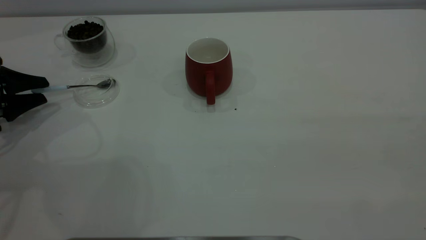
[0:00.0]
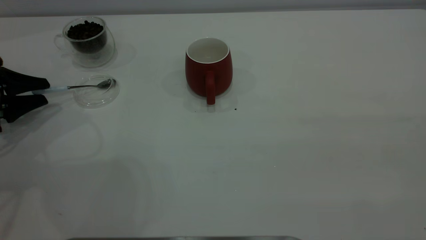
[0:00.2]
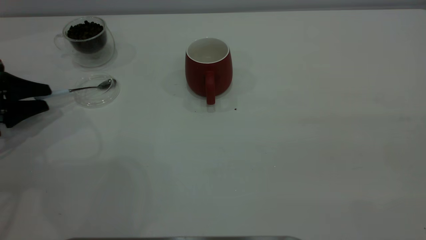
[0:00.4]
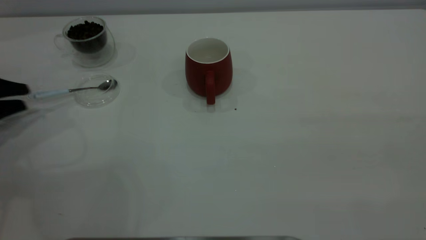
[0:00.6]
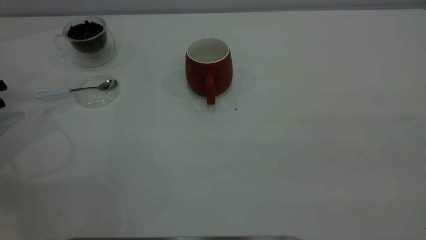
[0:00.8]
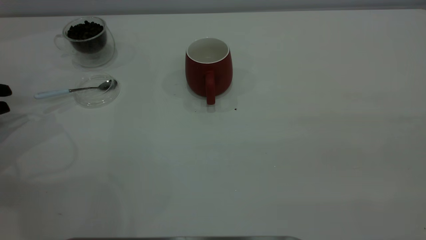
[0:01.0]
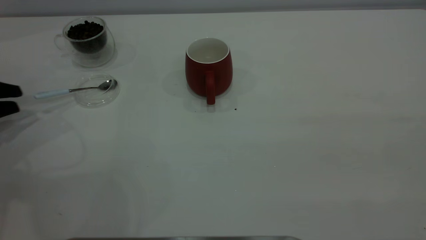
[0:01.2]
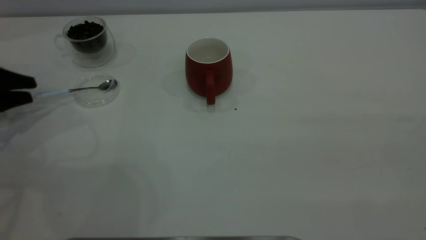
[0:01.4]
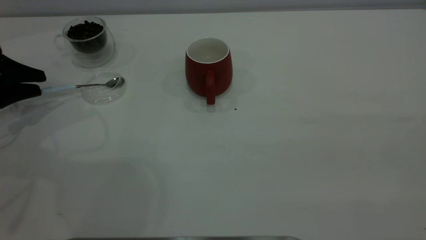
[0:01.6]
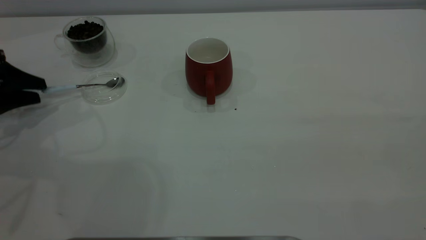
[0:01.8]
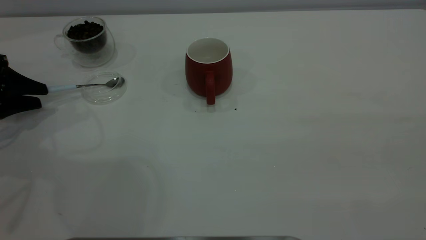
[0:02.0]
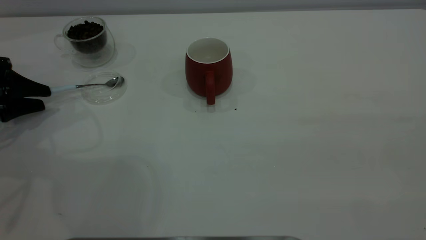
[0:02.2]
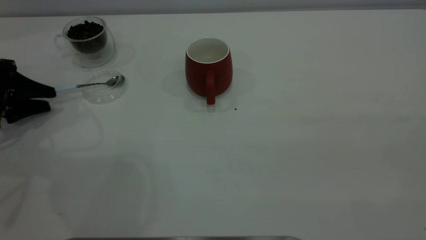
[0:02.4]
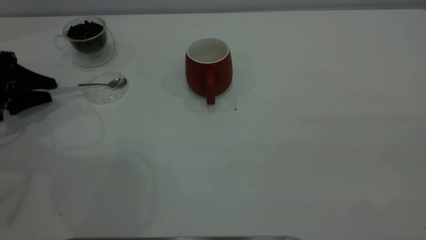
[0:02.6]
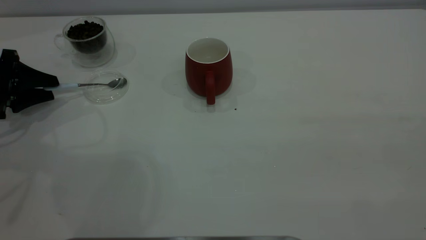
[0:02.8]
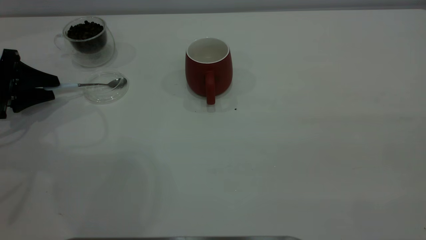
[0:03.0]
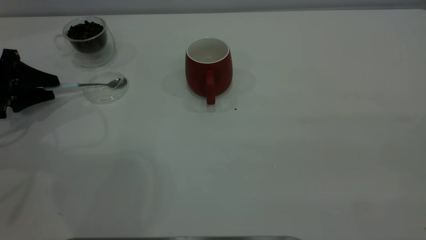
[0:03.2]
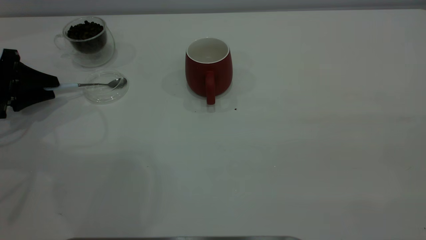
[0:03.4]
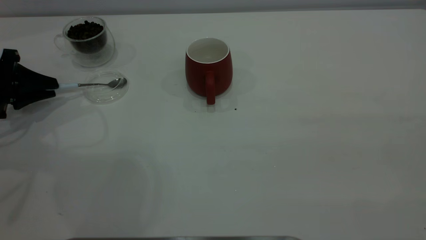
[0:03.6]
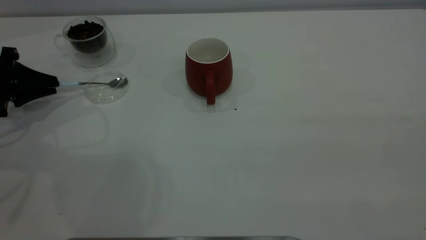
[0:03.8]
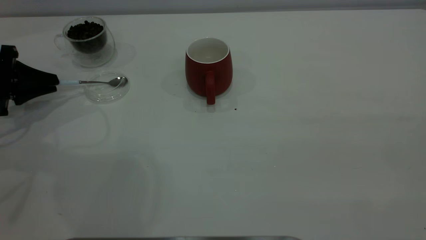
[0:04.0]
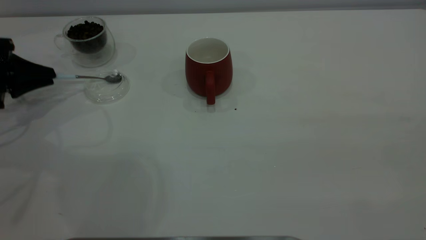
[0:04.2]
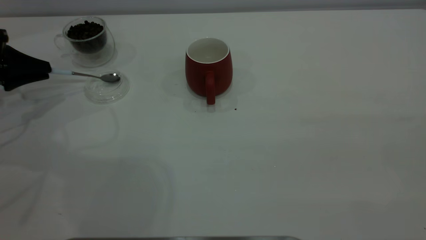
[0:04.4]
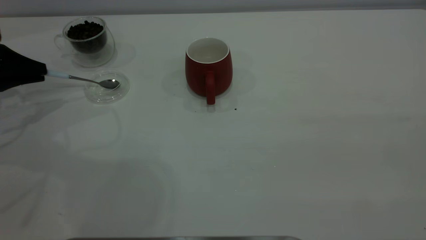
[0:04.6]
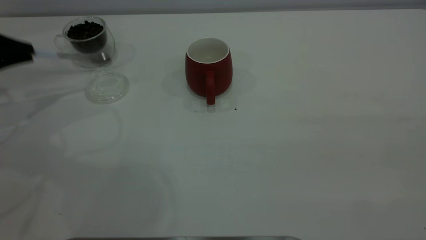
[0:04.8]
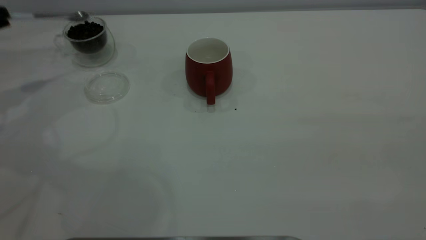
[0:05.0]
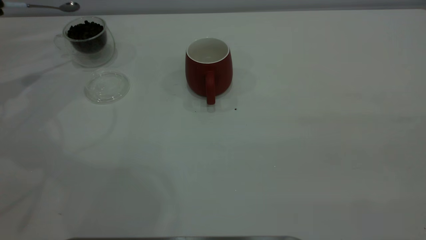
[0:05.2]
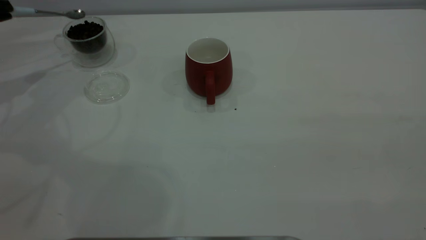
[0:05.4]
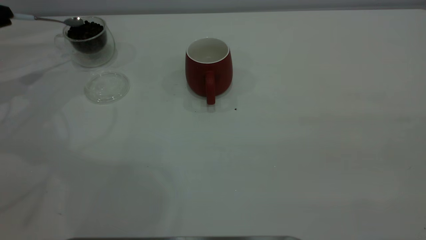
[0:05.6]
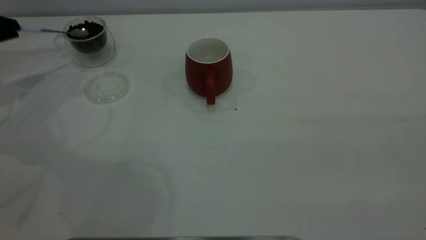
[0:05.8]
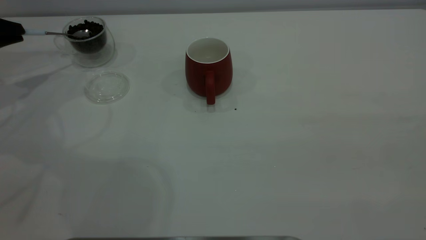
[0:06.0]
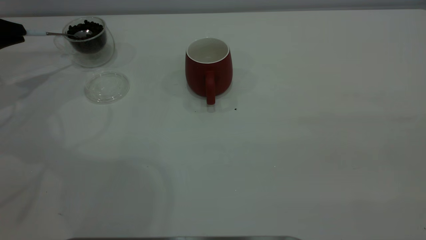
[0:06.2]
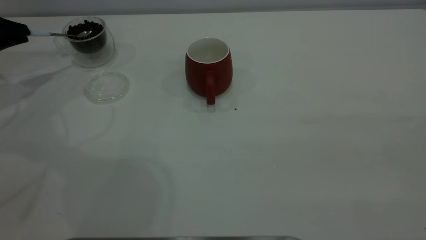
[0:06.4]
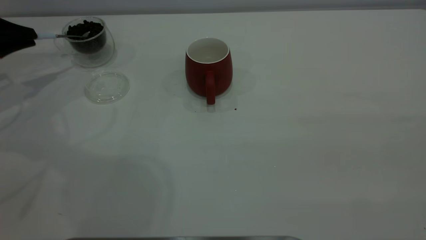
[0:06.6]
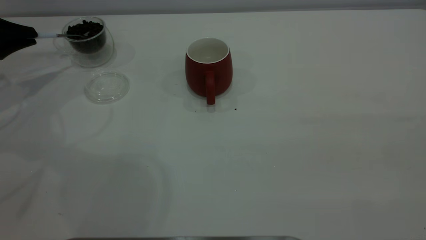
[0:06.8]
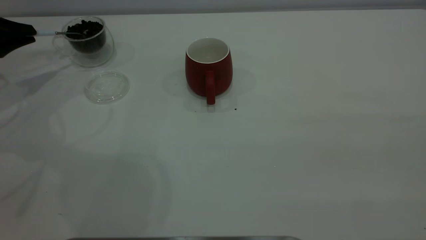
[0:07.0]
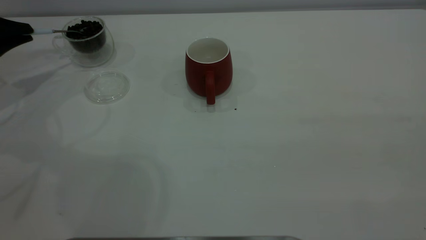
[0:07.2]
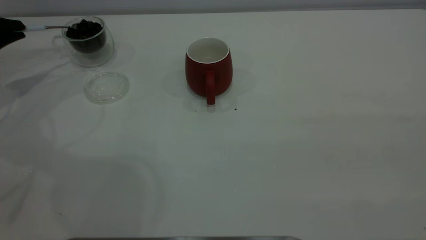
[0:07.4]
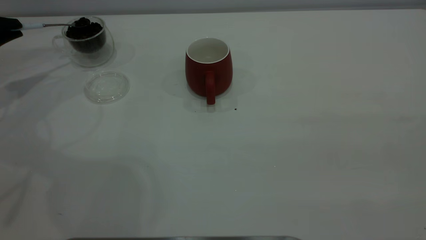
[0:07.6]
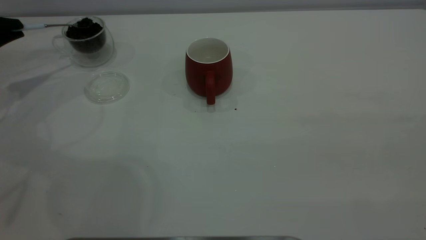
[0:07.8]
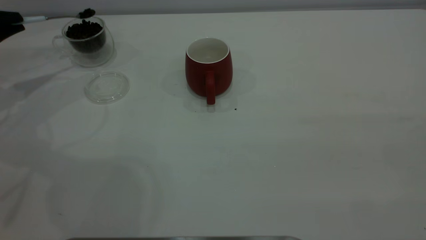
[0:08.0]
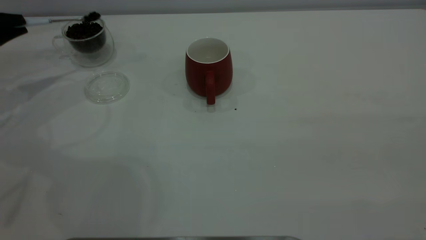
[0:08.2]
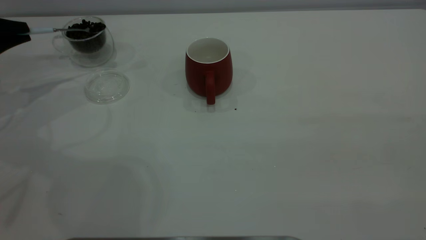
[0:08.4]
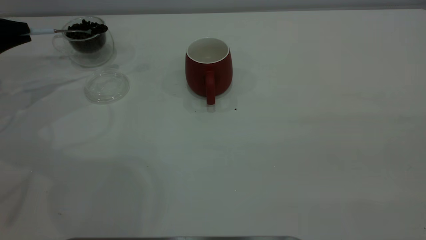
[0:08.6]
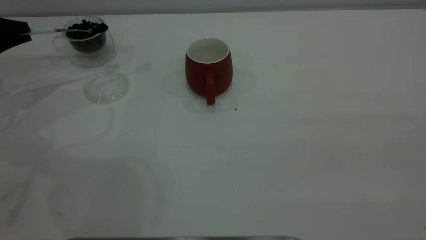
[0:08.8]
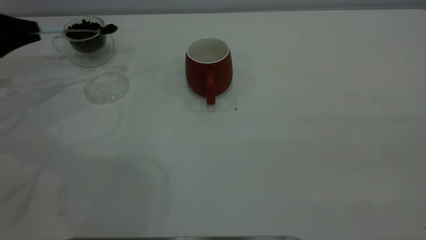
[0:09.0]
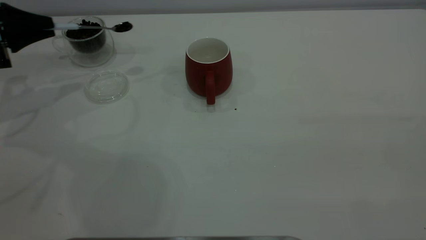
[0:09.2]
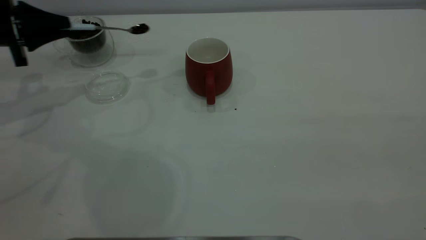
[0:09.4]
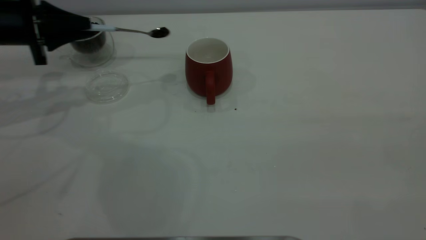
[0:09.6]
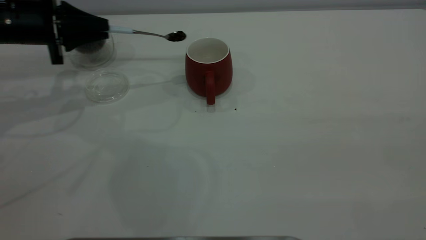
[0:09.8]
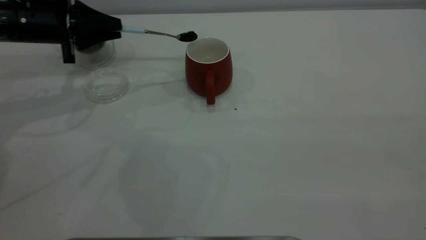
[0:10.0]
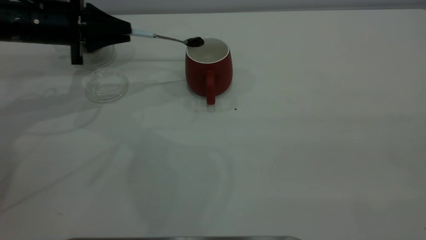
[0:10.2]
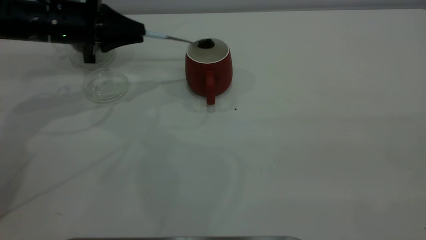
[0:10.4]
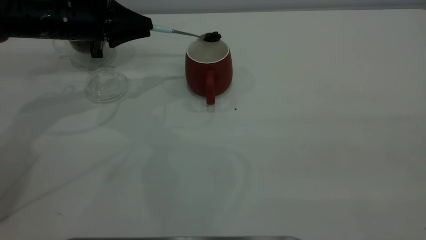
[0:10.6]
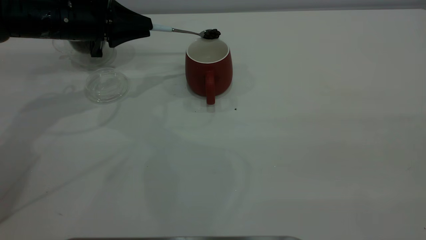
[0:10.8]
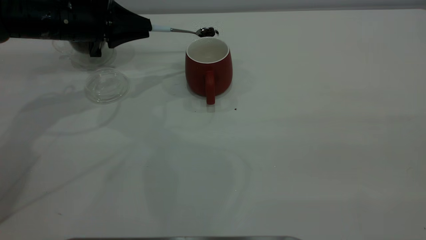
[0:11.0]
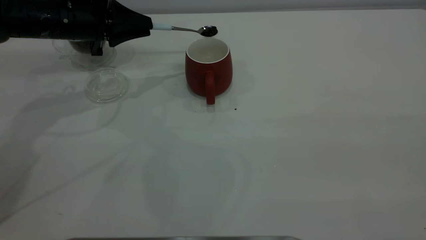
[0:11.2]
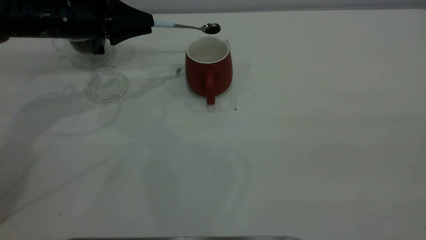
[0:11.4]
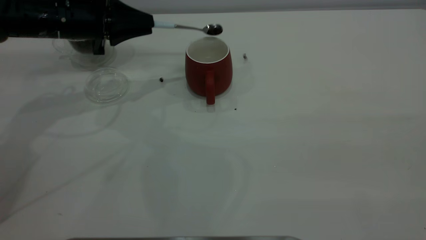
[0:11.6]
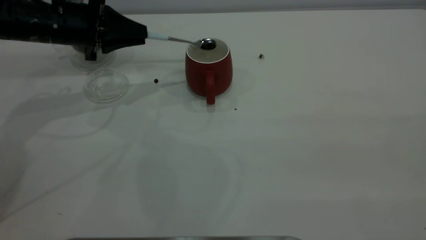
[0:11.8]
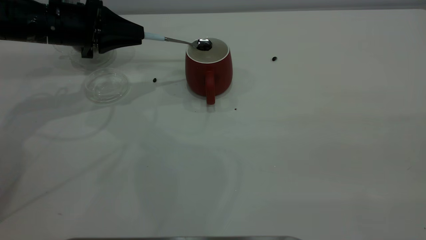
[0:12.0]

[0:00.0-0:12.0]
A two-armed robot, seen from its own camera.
Task of the whole recording: the right gripper place the red cup in the center of the table, the left gripper take the blue spoon from the cup lid and scoop out the coffee beans from the coffee cup and put them into the red cup, the left gripper put the spoon back into the cup lid.
Step, 0:00.0 to 0:04.6: Pick up the spoon.
0:00.0 to 0:03.0: The grippers make only small movements.
0:03.0 to 0:04.4: The left gripper closes up.
0:07.6 to 0:09.0: The grippers move only a little.
0:09.0 to 0:10.4: The left gripper is displaced to the right by roughly 15 cm.
0:10.4 to 0:12.0: There are only small adjustments of the grippers.

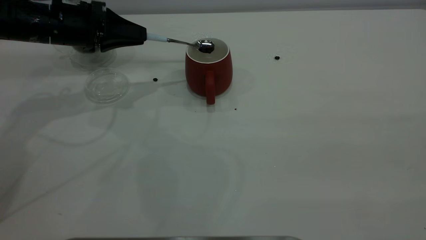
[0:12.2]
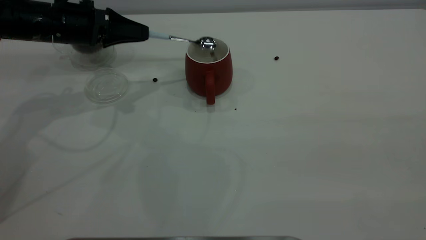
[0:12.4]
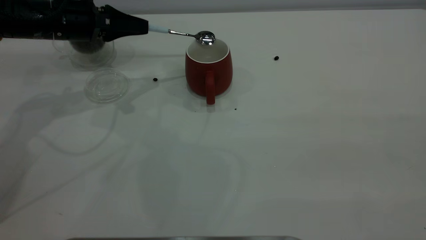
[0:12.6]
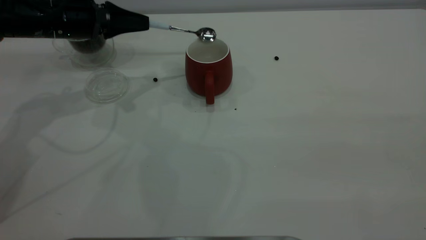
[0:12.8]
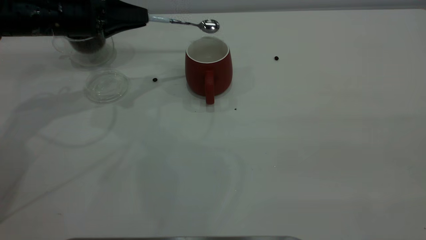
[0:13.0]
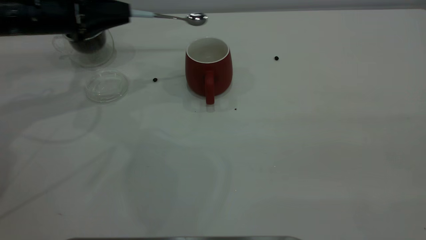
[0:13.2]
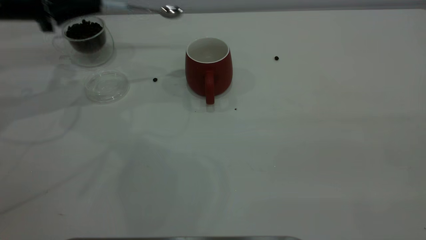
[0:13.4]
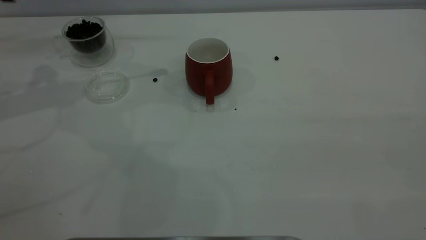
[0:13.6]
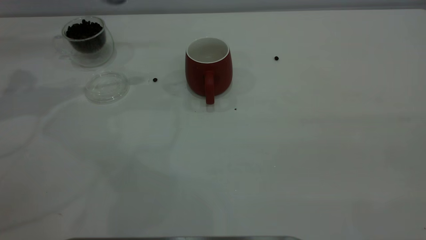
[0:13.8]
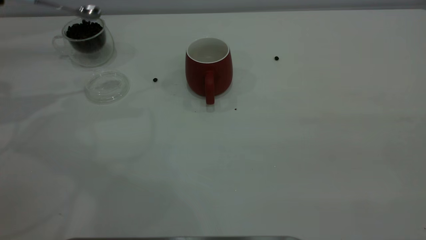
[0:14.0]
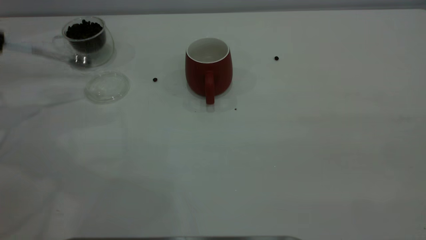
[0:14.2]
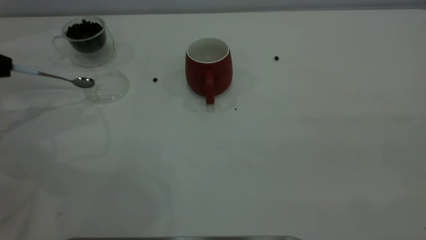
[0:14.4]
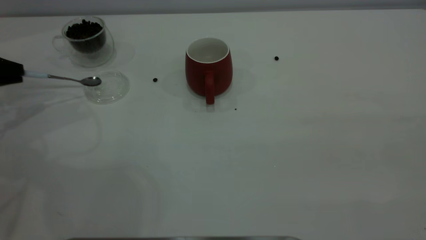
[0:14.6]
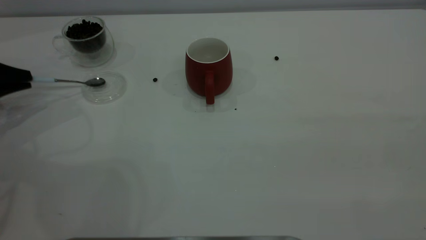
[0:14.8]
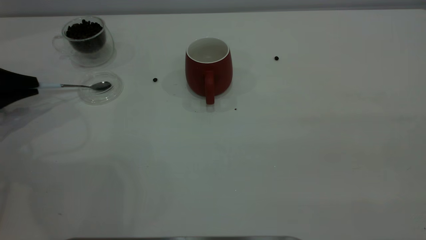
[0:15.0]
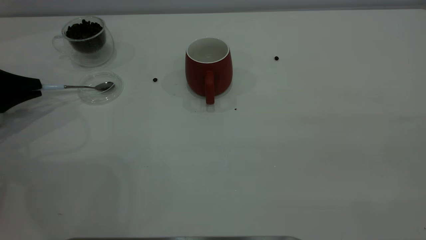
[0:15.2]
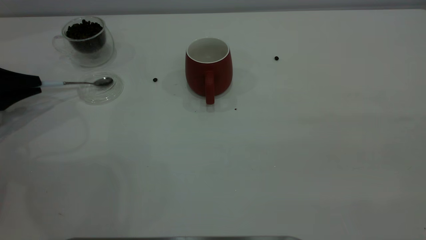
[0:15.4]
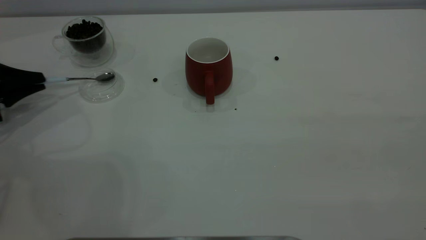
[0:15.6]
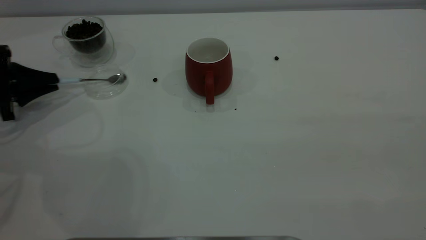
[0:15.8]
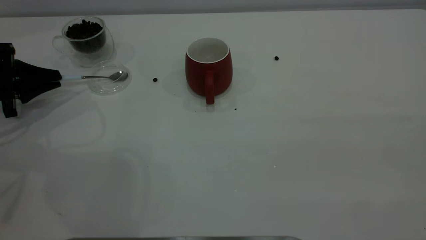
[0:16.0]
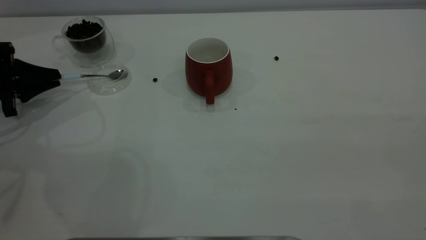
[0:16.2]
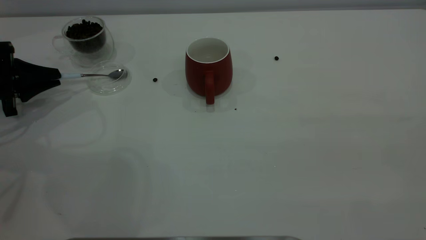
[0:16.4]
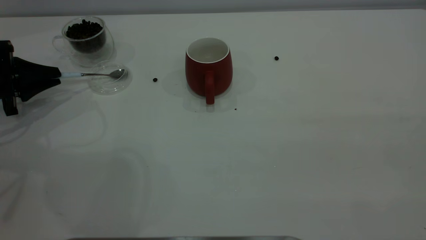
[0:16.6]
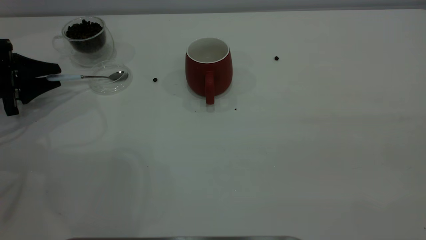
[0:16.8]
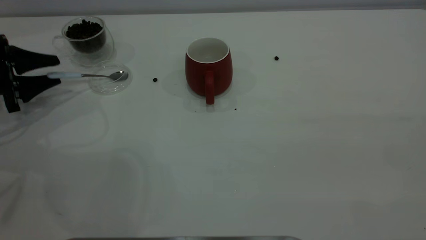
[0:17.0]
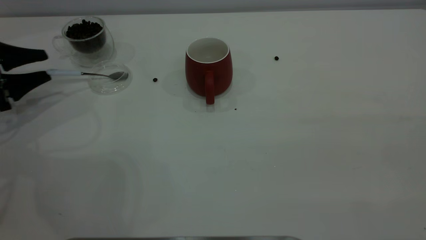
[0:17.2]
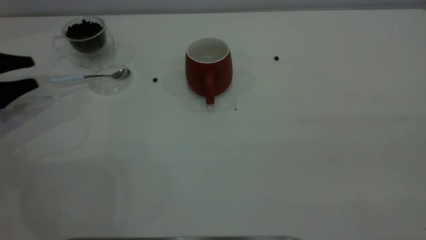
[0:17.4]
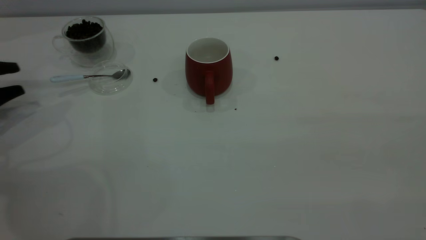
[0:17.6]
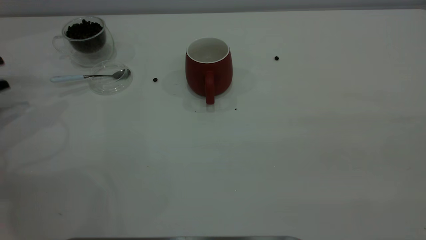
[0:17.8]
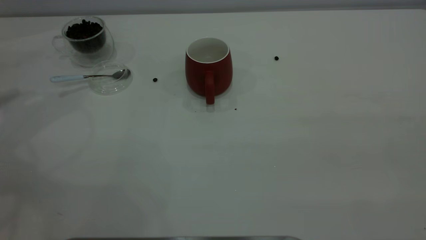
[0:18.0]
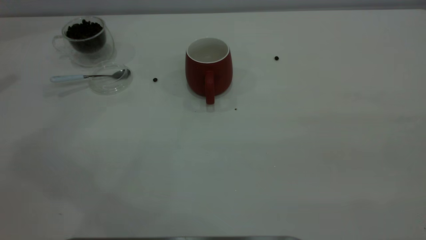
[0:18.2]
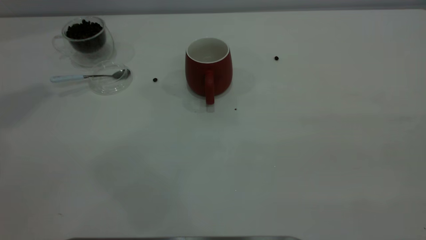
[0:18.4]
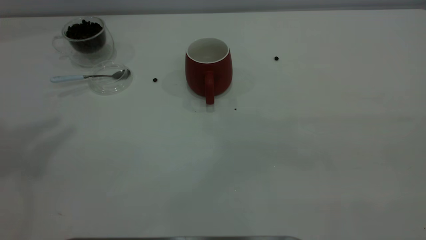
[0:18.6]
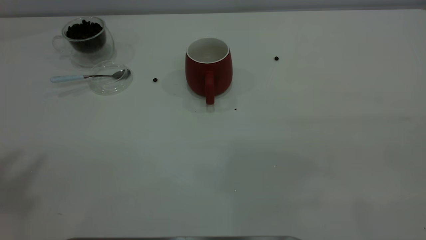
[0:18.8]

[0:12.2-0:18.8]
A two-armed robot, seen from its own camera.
Task of the whole recording: the right gripper place the red cup in the center of the table, the left gripper take the blue spoon from the cup lid and scoop out the coffee beans from the coffee cup and put them into the red cup, the left gripper put the spoon back into the cup lid.
Step, 0:13.2 to 0:17.4: Place the spoon back in its original place.
0:12.2 to 0:13.8: The left gripper goes approximately 20 cm to the left and upward.
0:13.8 to 0:15.4: The left gripper is displaced downward by approximately 20 cm.
0:15.4 to 0:17.2: The left gripper opens.
0:17.2 to 0:18.8: The left gripper travels upward by some 50 cm.
